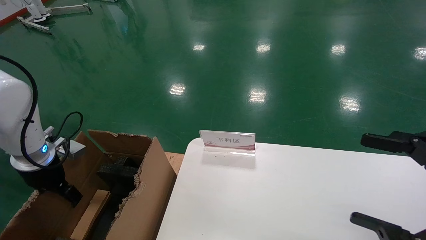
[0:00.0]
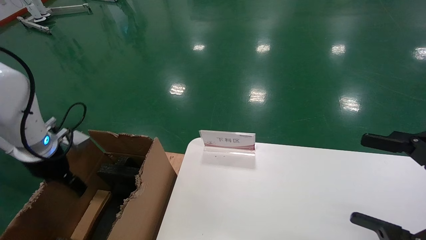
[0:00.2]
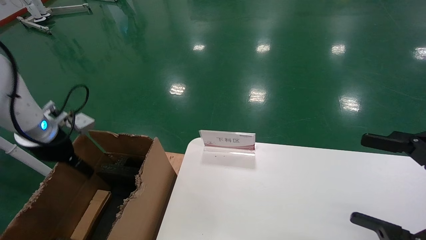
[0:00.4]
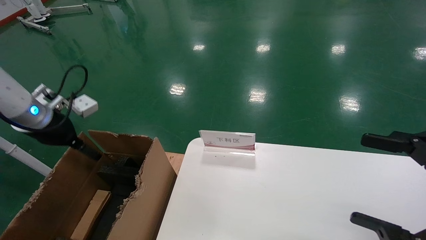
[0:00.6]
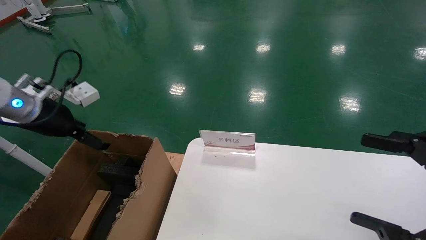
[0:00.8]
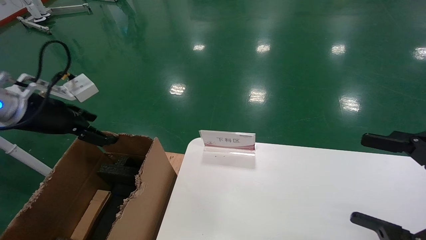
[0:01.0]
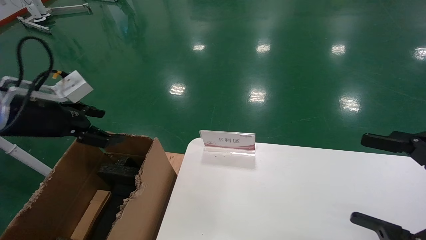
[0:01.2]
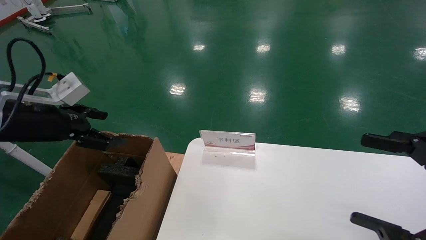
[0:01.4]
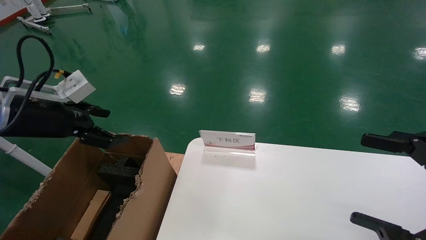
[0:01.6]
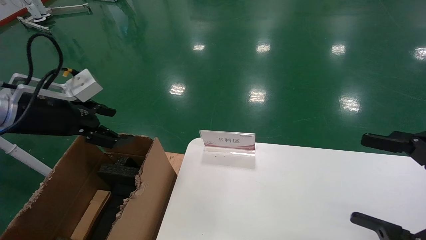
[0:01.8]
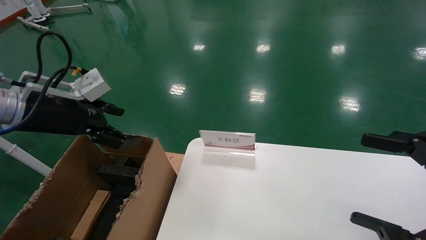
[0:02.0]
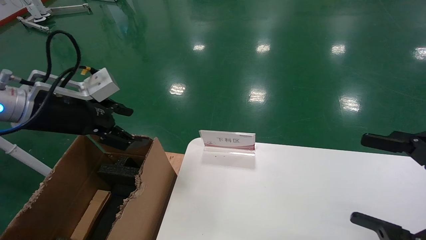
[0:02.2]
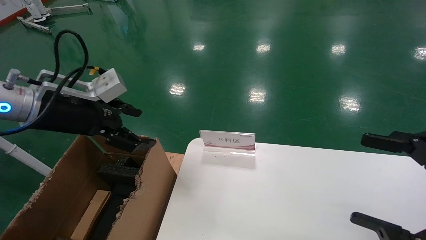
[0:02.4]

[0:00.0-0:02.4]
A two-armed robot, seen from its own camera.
Task of the whole recording: pick up the small cardboard box and load it into the large cardboard box.
0:00.0 to 0:01.2: The left gripper shifts approximately 10 cm upward and backward.
0:01.2 to 0:02.4: The left gripper is displaced to the right by some 5 cm.

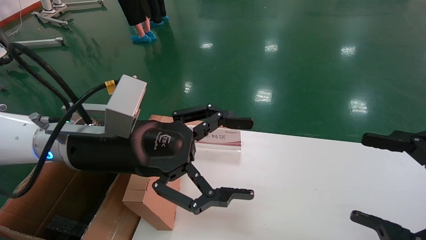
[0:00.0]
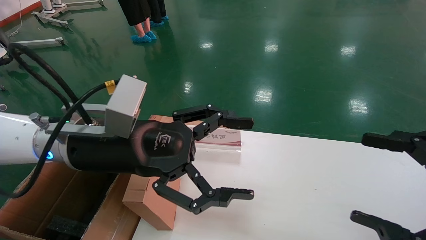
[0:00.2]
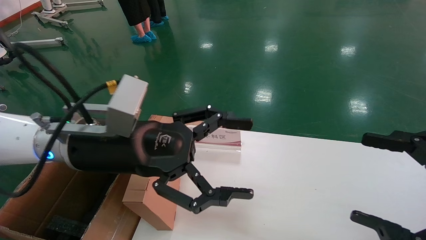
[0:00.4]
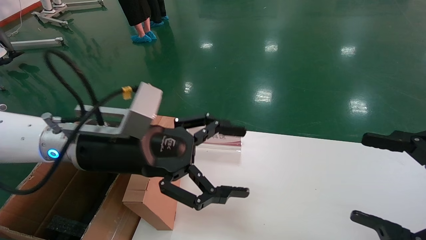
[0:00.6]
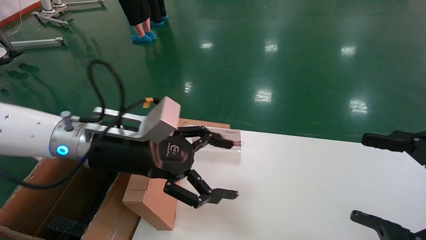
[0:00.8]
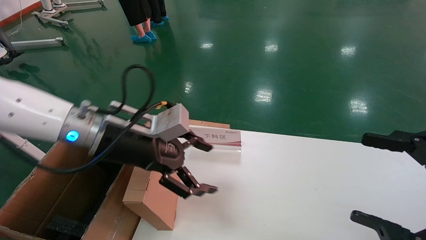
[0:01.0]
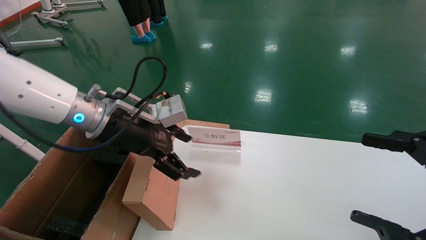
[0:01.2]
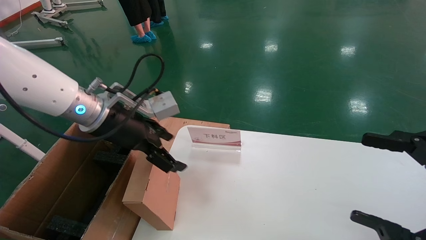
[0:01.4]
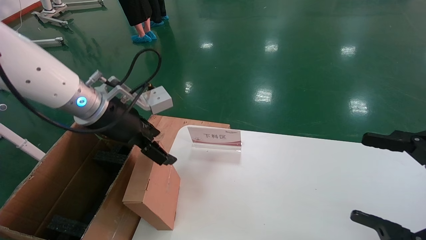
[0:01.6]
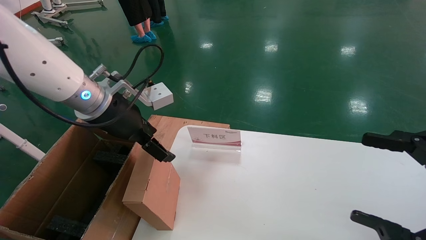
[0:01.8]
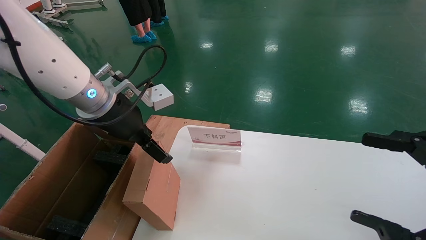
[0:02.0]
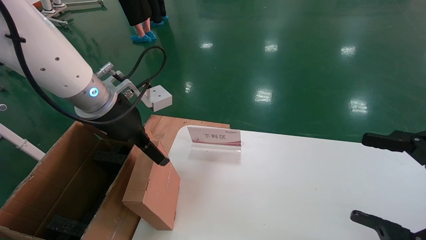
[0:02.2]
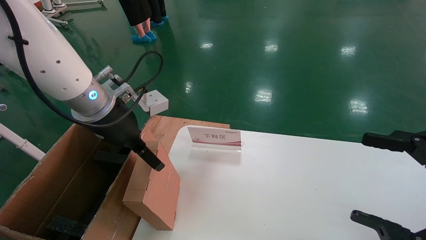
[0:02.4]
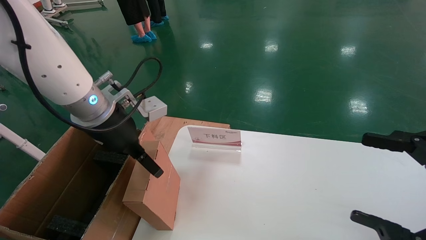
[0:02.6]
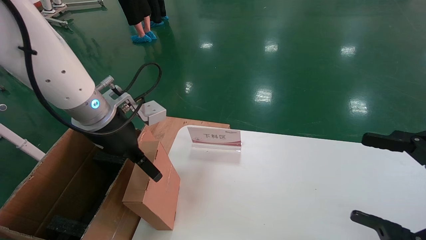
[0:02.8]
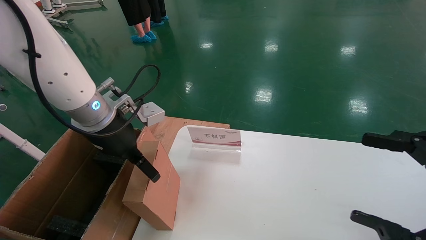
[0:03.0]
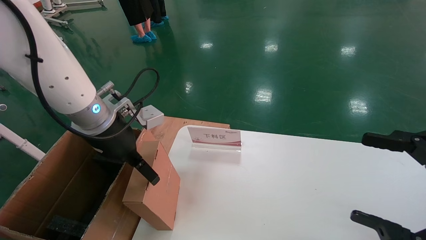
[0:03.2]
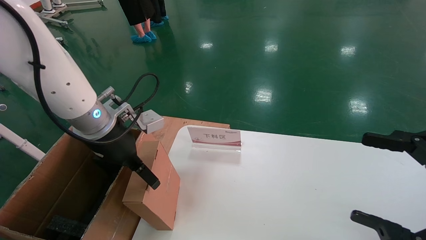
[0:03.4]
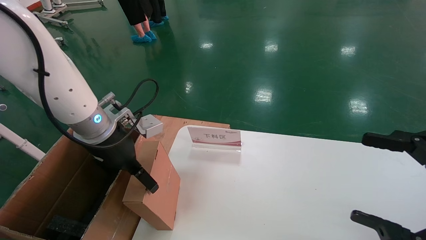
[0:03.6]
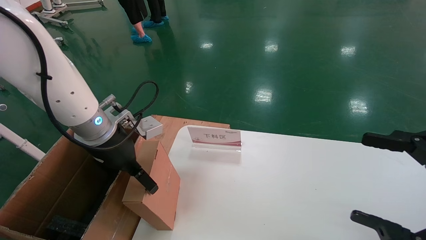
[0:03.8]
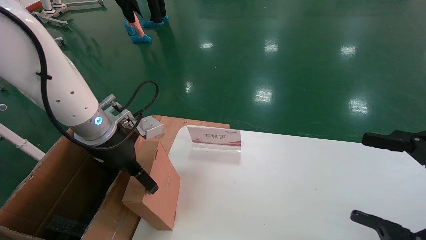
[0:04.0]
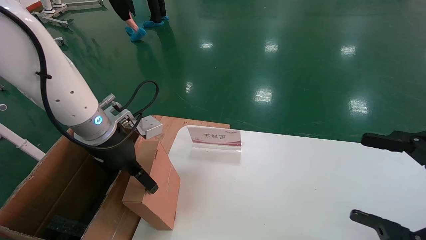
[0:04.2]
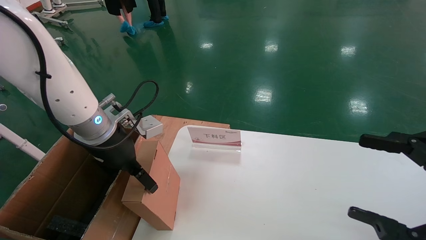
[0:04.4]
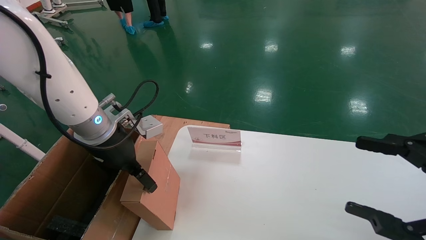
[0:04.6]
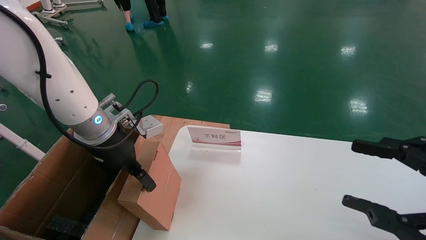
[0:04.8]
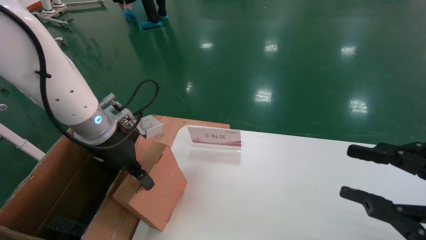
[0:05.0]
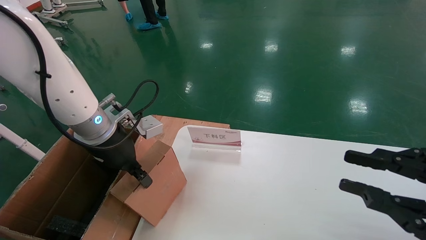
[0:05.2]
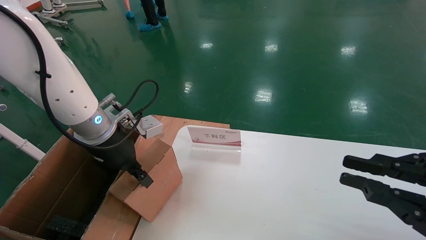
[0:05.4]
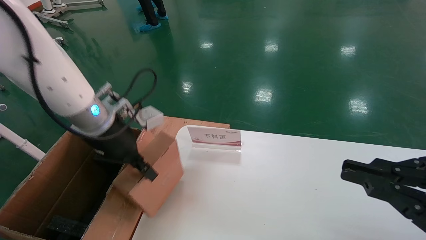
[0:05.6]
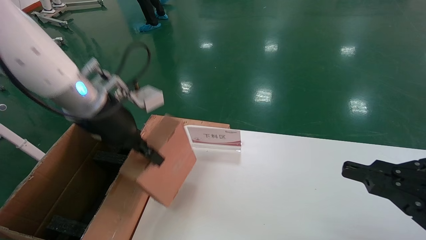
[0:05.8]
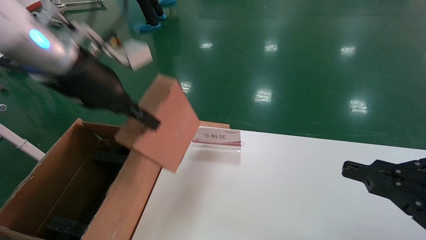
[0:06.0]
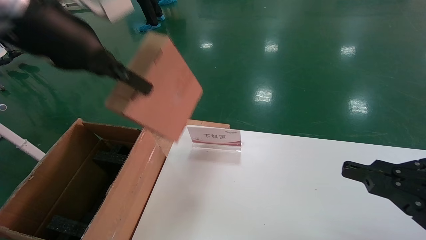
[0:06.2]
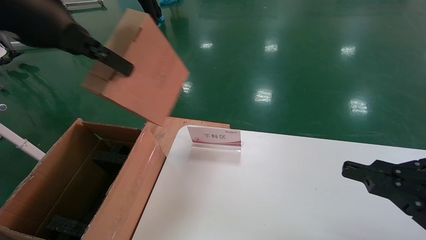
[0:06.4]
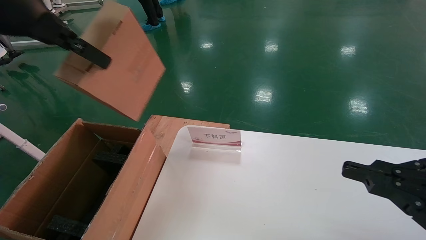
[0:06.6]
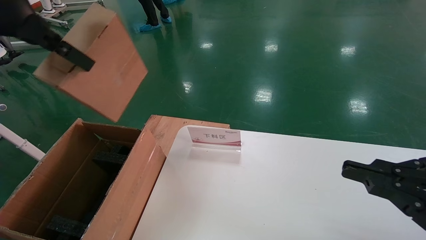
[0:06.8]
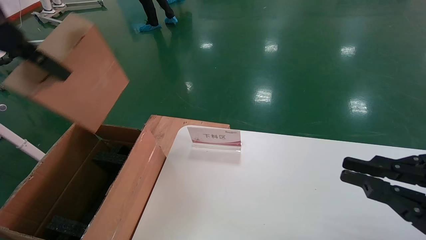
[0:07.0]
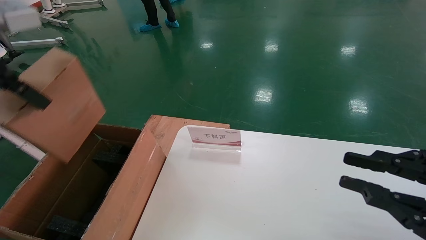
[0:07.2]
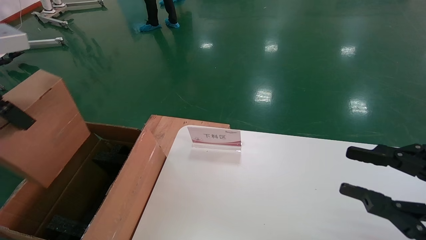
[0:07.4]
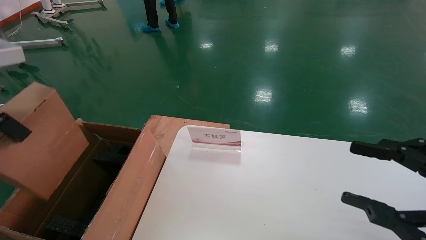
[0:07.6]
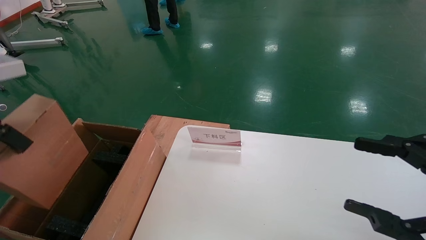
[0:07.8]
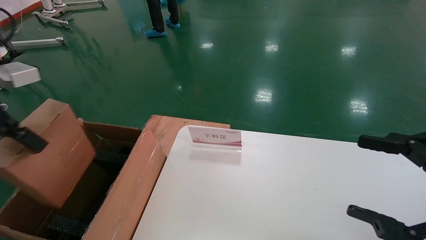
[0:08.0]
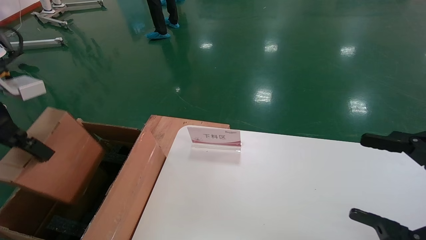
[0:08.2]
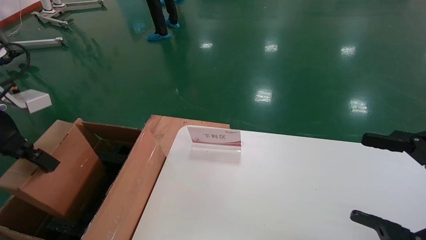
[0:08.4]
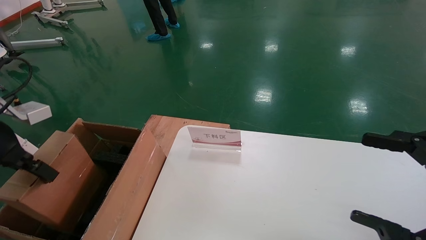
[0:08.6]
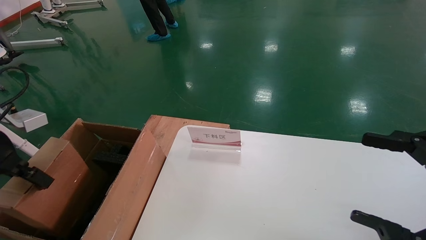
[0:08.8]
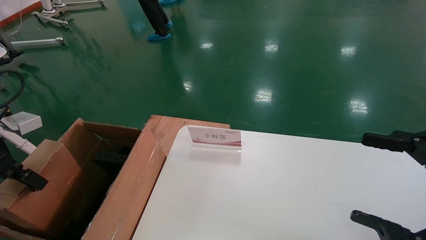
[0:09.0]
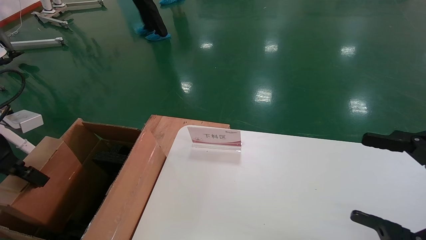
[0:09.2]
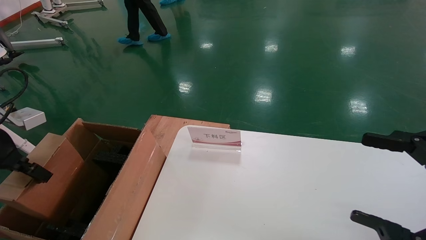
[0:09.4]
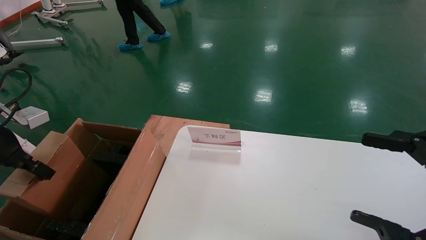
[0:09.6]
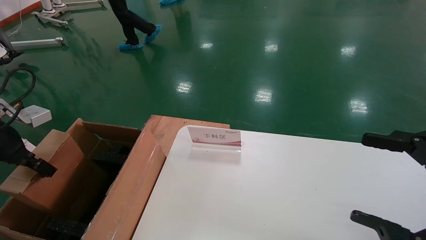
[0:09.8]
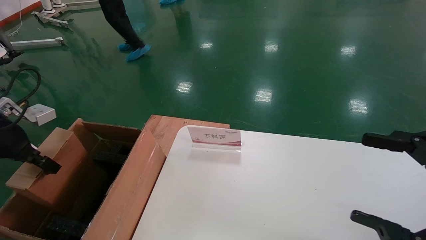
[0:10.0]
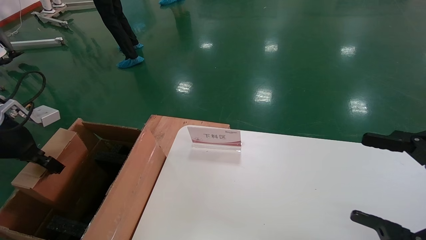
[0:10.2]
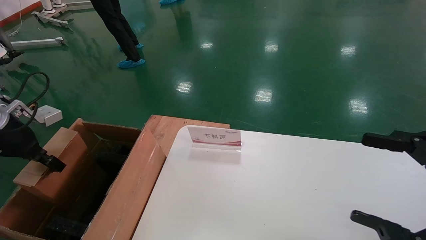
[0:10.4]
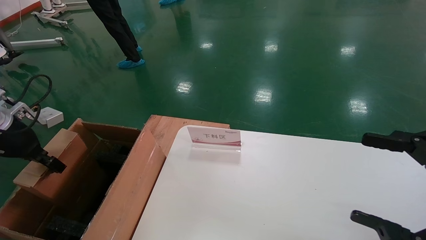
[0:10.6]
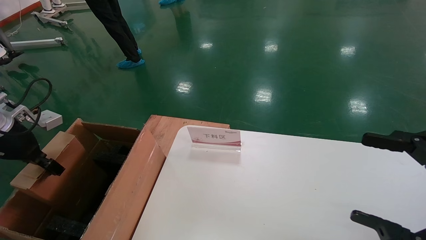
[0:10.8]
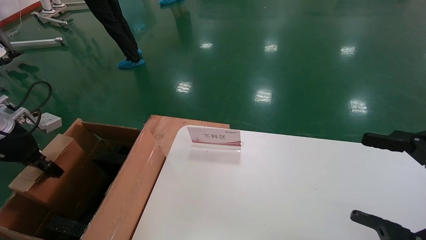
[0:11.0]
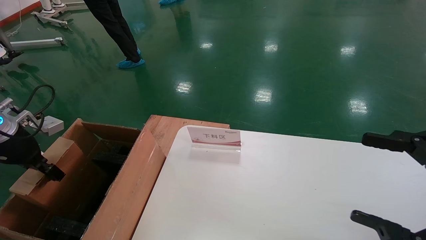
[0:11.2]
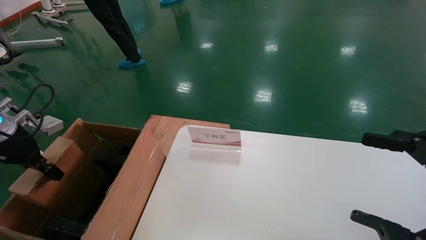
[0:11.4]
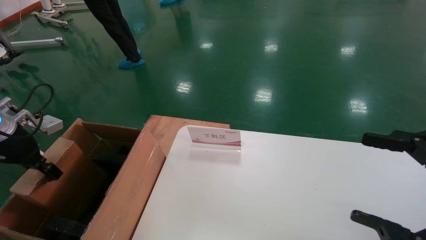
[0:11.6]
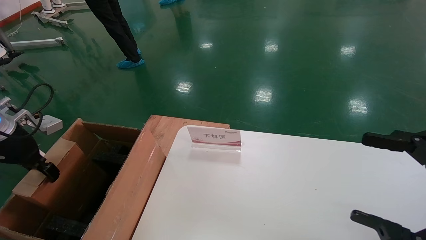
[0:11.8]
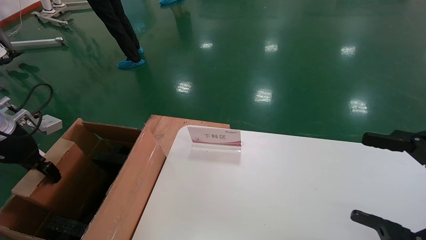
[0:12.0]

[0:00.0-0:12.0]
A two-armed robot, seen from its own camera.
Task of the whole recording: pick up the small cardboard box and load it into the large cardboard box.
Step, 0:00.8 to 0:05.2: Pick up the mouse and power cord box.
Step, 0:05.4 to 0:12.0: Place the mouse and power cord box into the case.
0:00.0 to 0:01.6: The left gripper shifts approximately 10 cm forward.
0:03.0 to 0:04.4: The grippers move only a little.
0:04.4 to 0:06.0: The left gripper is displaced upward by approximately 15 cm, and closes. Meanwhile the right gripper closes its fingers.
0:06.0 to 0:07.6: The left gripper goes roughly 15 cm to the left and backward. Meanwhile the right gripper opens up.
0:07.6 to 0:09.0: The right gripper opens its fingers; the left gripper goes about 15 cm downward and to the left.
0:09.0 to 0:10.4: The left gripper shifts roughly 5 cm forward.
0:10.4 to 0:12.0: There are only small adjustments of the grippers.

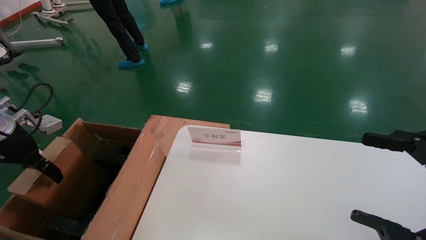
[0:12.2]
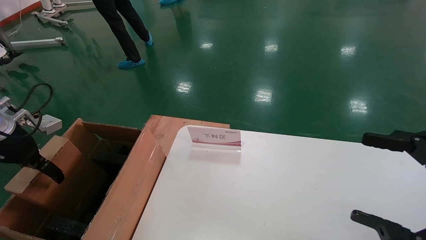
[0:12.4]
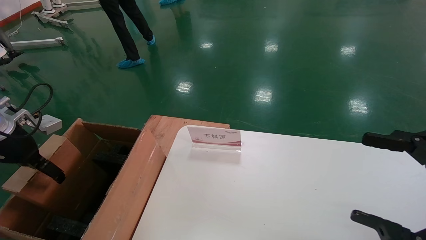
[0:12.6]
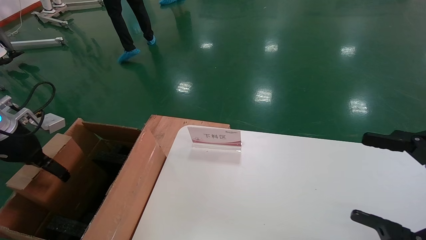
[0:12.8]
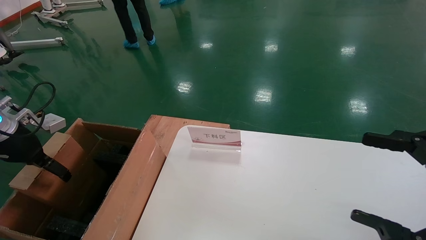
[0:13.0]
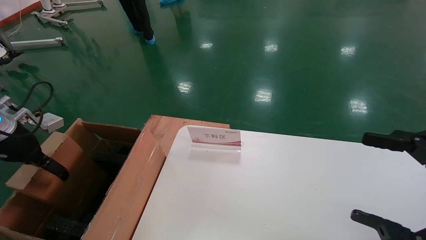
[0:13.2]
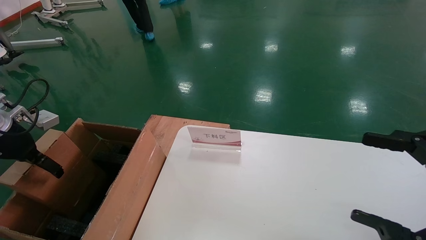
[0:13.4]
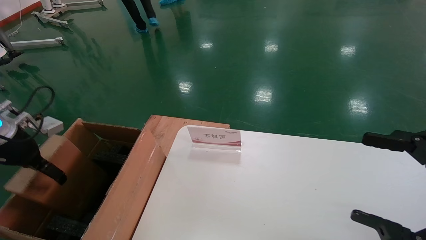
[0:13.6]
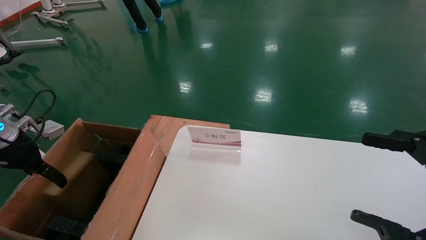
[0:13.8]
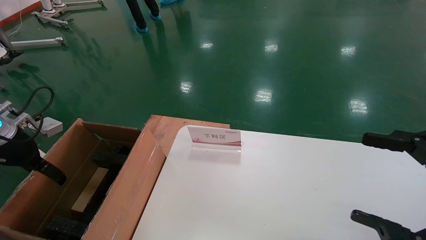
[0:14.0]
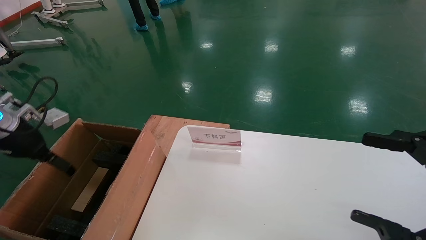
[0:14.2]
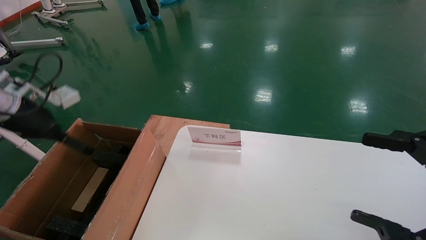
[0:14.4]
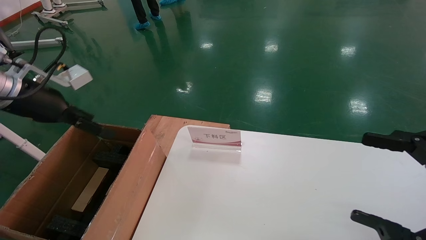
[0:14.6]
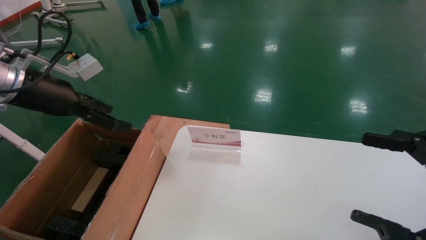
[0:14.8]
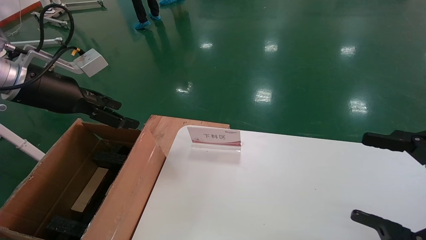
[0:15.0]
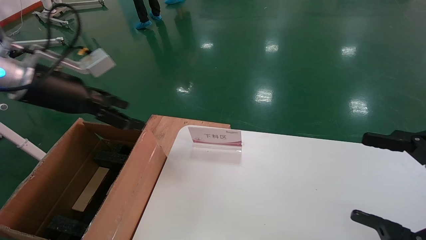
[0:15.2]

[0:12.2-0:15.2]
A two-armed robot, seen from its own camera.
Task of the whole recording: pick up the small cardboard box and load it into the large cardboard box.
0:12.2 to 0:13.8: The left gripper opens.
0:13.8 to 0:15.2: The left gripper goes approximately 20 cm to the right and upward.
